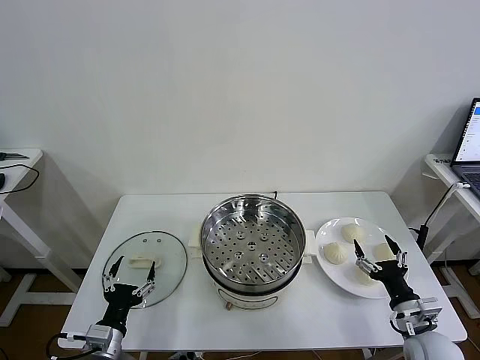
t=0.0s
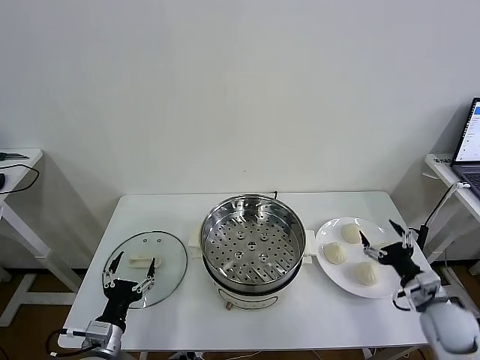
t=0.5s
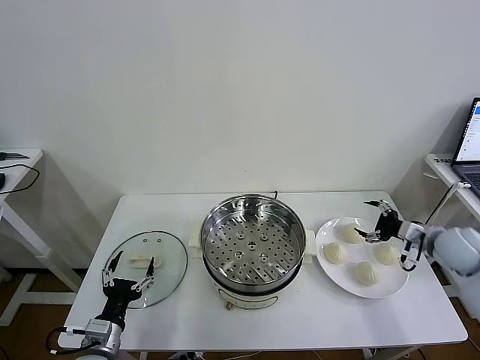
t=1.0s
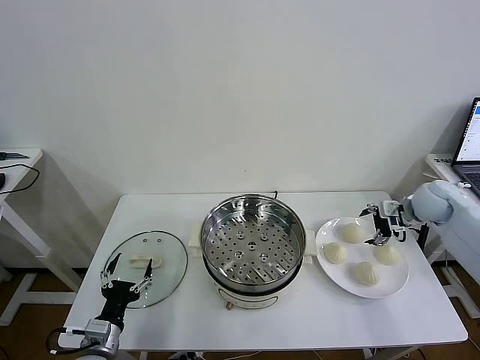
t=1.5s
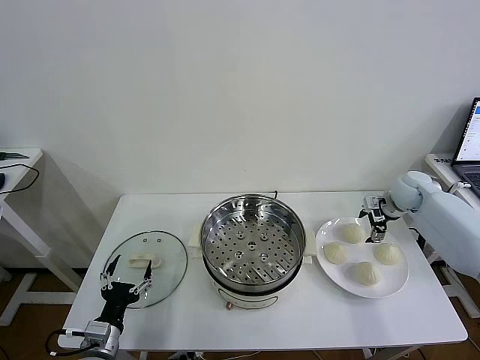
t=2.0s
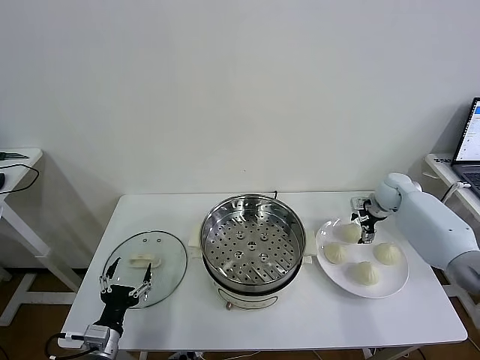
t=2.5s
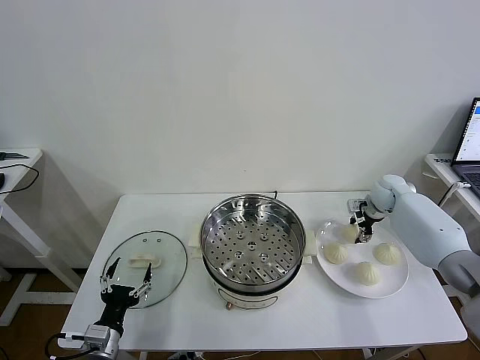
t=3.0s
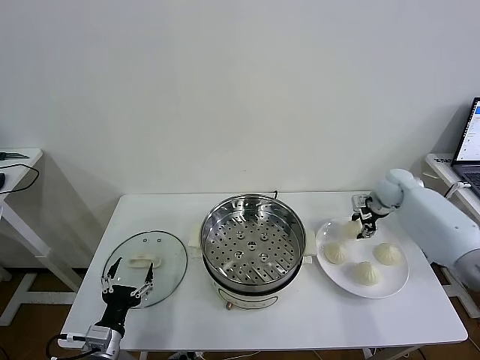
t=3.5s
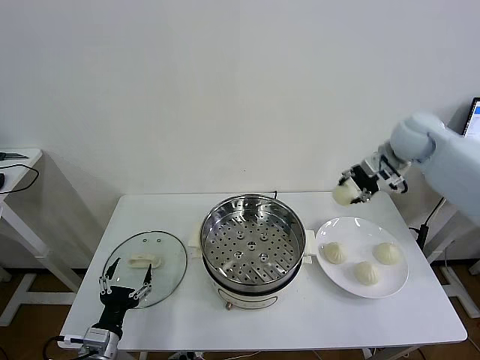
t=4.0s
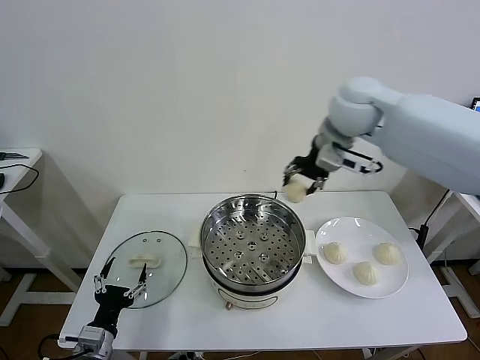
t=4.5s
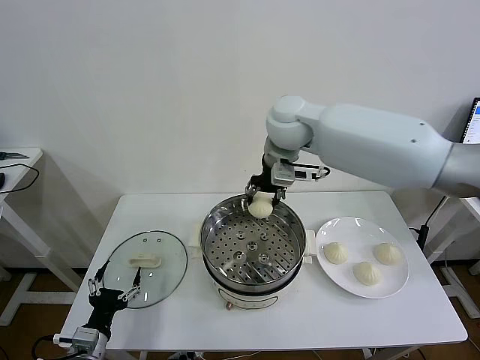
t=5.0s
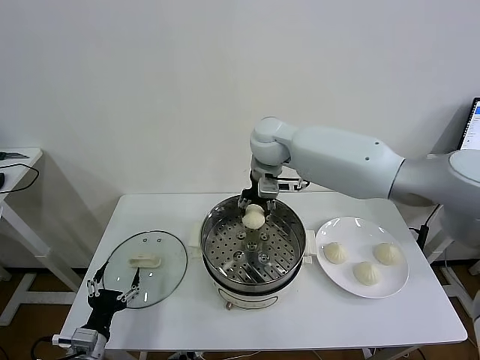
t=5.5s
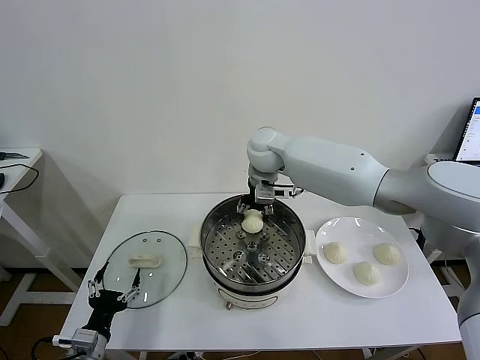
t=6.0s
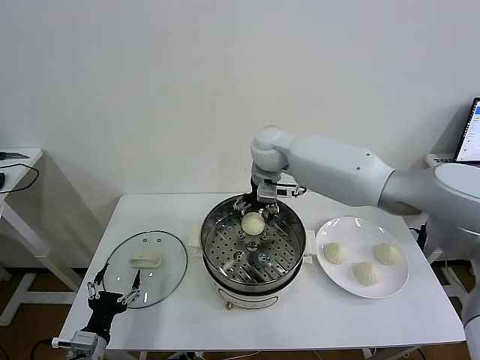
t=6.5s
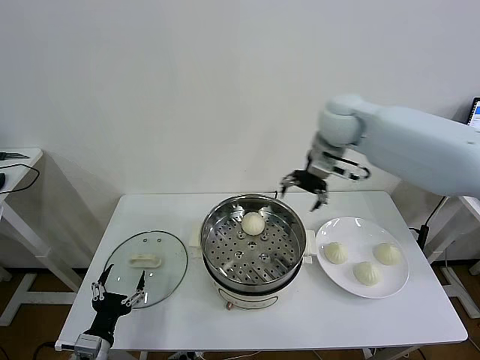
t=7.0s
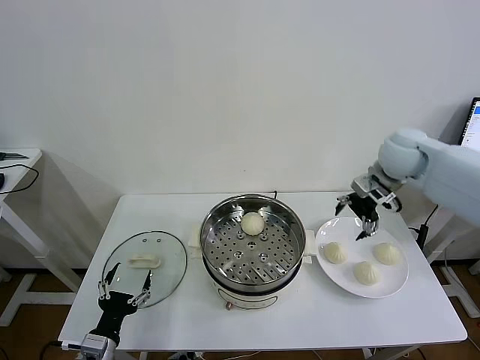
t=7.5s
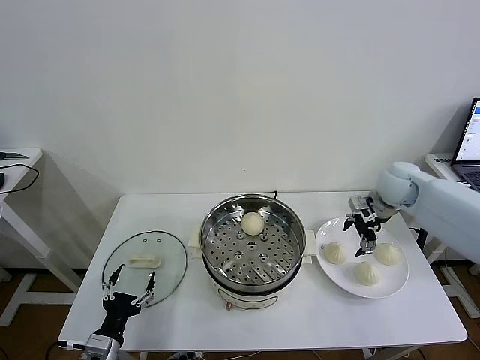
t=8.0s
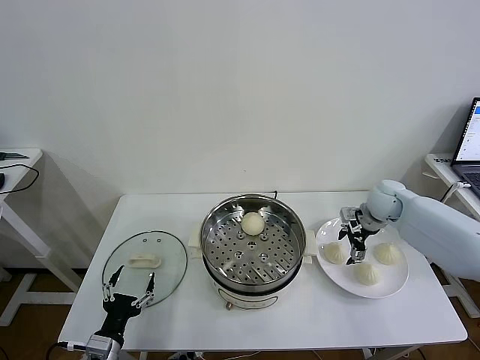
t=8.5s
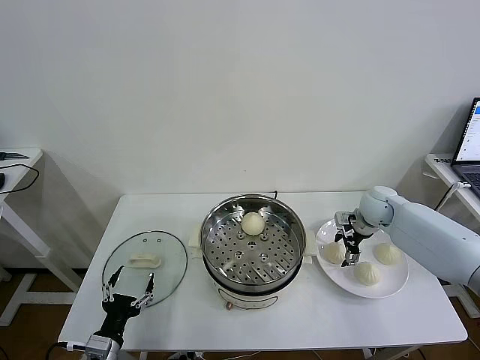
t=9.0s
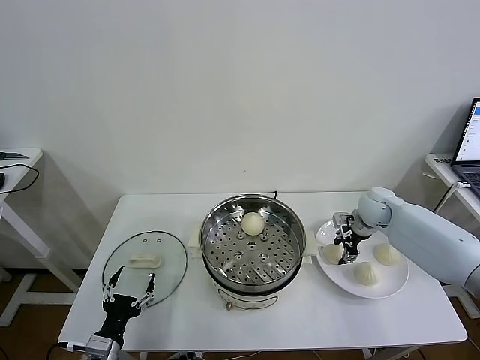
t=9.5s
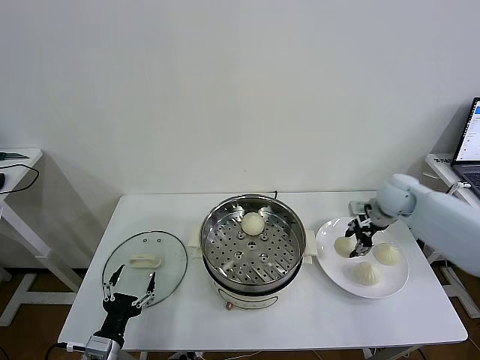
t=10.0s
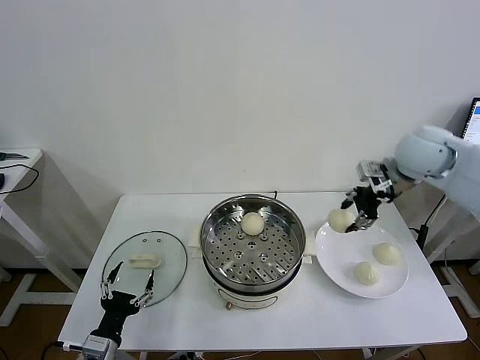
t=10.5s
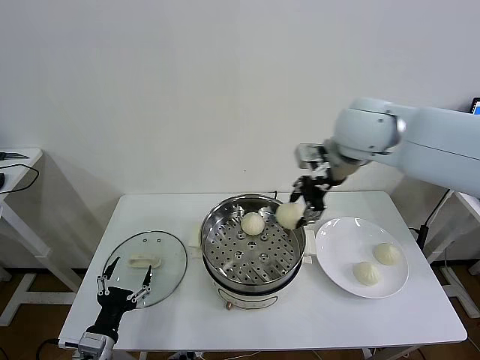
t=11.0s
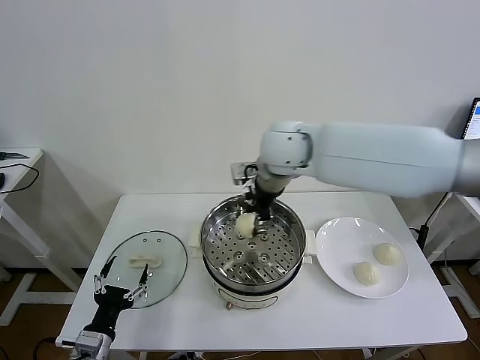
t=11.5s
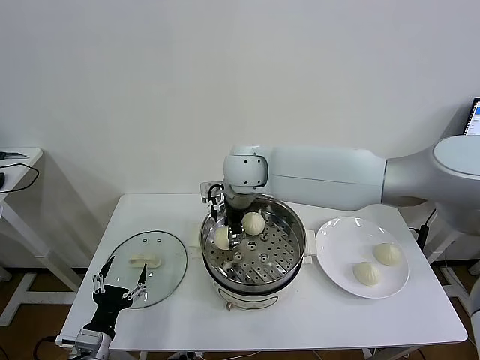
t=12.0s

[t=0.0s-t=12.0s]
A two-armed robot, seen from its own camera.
Task of the whole recording: take steamed baozi put them in steamer then cover it.
Step, t=0.0s to t=3.0s: Grasp the baozi in the plate with right gripper.
Step, t=3.5s to t=6.0s: Place the baozi on the steamer with right gripper.
Step, t=6.5s to t=9.0s: Grasp the baozi in the plate with right gripper.
t=2.0s to t=4.0s: The right gripper moves upward and to the left, about 20 cm, and closes its fingers.
t=4.0s to t=6.0s: The right gripper shifts some 30 cm to the left.
t=6.0s to t=8.0s: The right gripper heads to the right, covering some 30 cm, and opens up.
t=8.0s to t=10.0s: The right gripper reaches roughly 10 cm downward, then returns, and closes its fingers.
t=10.0s to t=12.0s: The right gripper goes some 40 cm to the left.

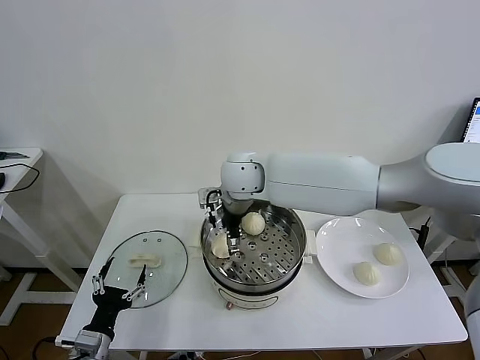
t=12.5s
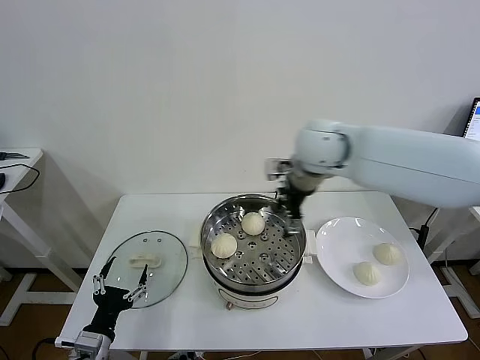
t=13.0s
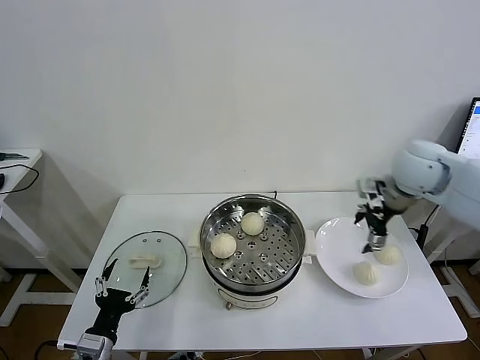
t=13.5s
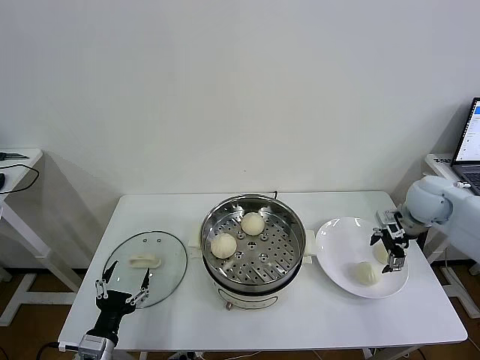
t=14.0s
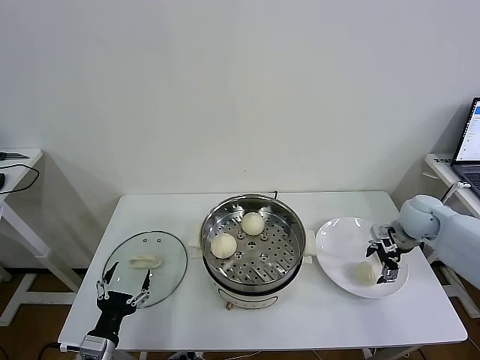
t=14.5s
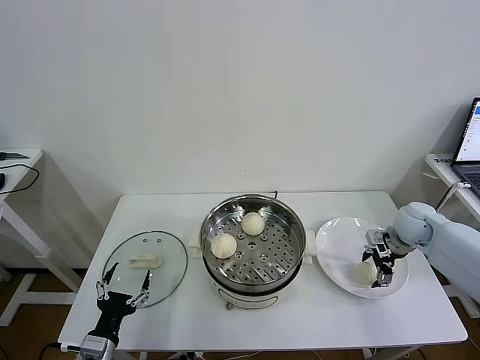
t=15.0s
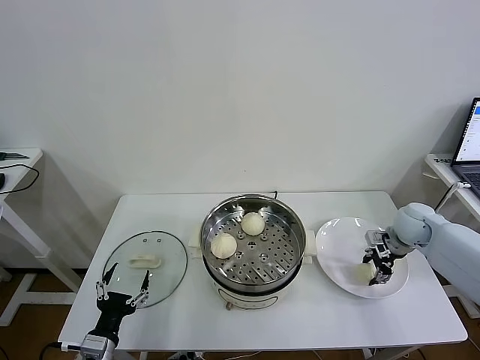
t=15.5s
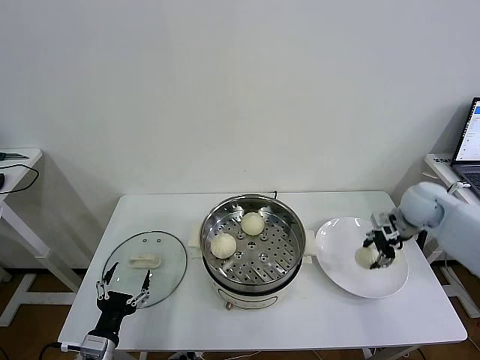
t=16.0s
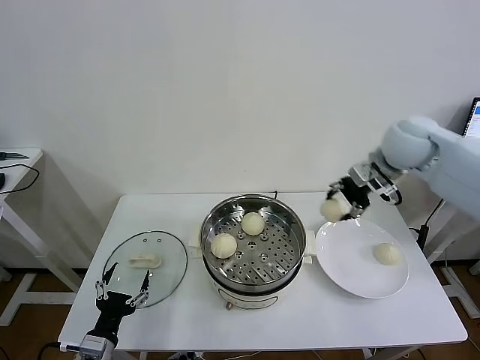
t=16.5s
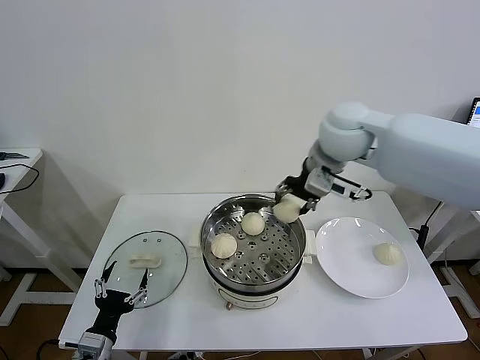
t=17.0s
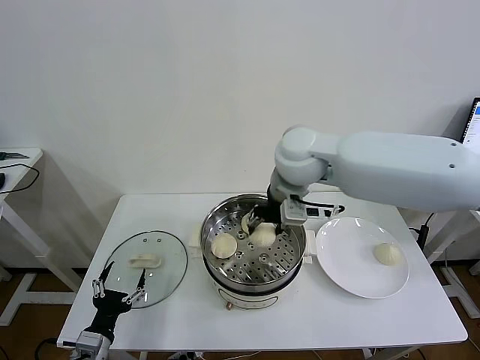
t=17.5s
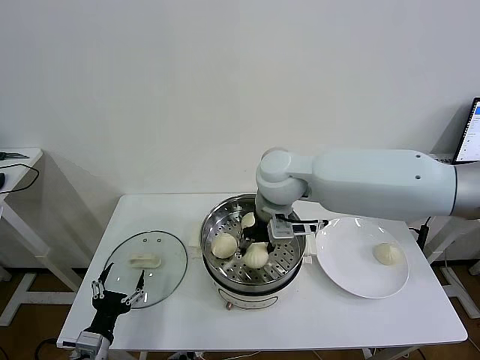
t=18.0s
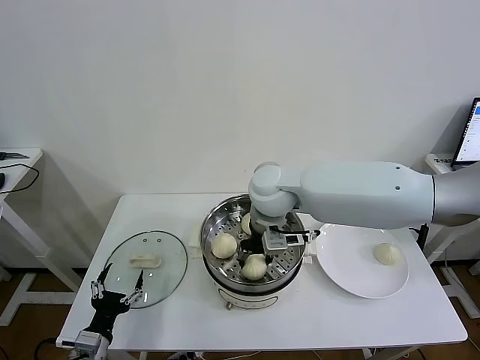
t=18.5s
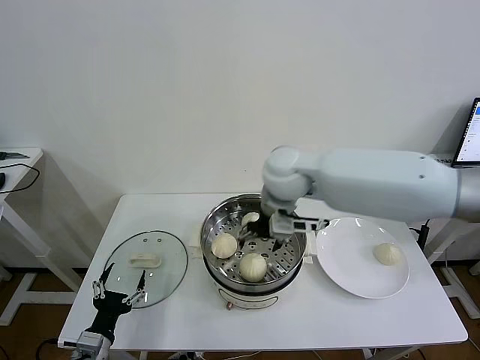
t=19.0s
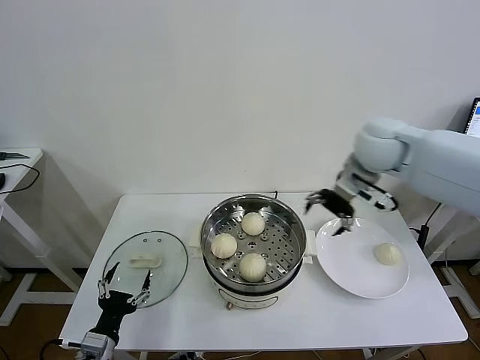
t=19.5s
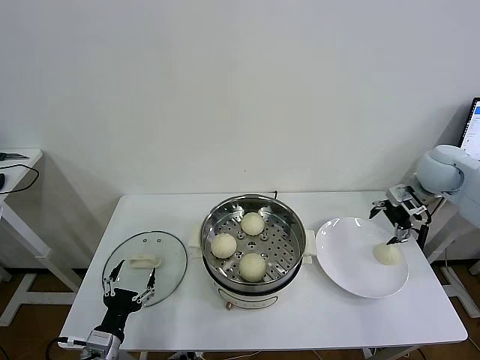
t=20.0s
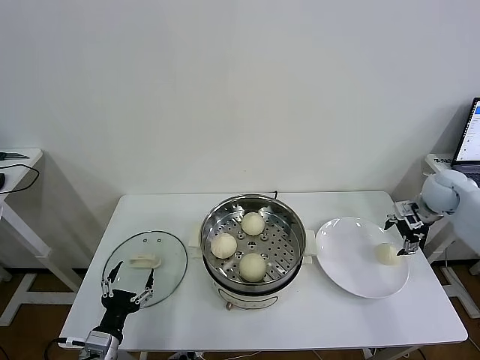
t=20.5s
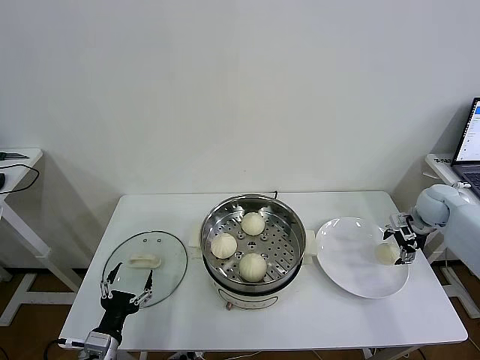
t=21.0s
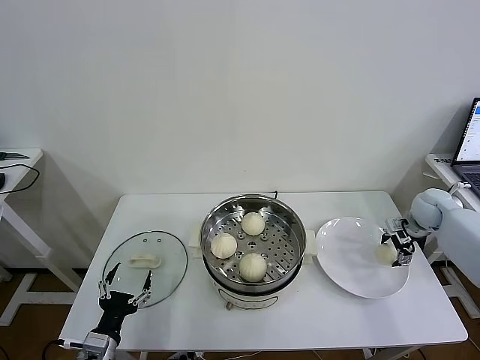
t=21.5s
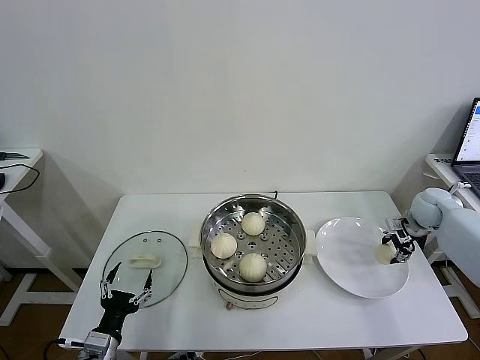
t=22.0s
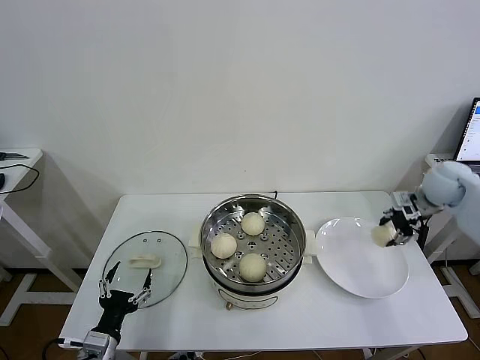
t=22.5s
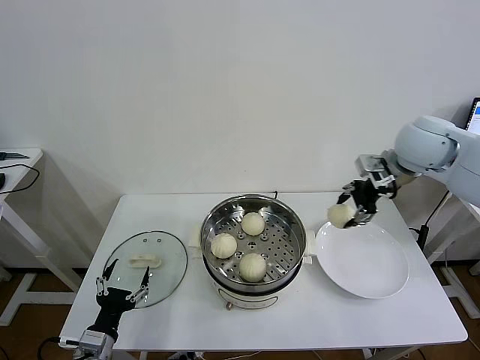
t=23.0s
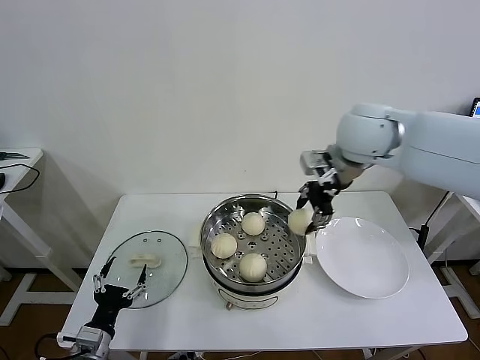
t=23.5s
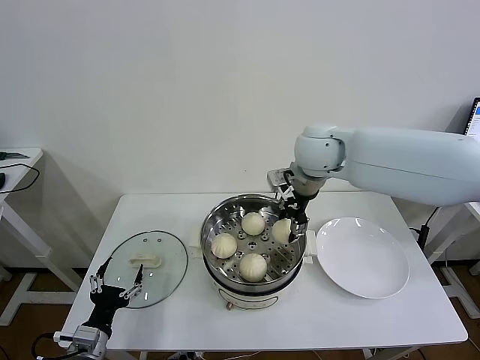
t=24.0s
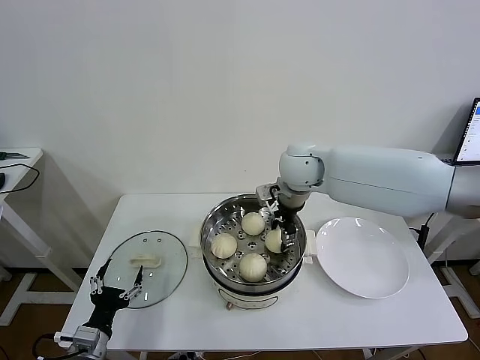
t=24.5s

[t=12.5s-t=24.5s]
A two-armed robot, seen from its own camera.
Task of the whole recording: take steamed baozi put them in steamer then cover it.
Step, t=12.5s to t=15.0s: Grasp the baozi in the plate with right gripper.
Step, t=16.0s to t=18.5s: Place the baozi on the steamer with right gripper.
Step, t=19.0s to t=22.0s: Grasp the baozi in the plate with right gripper.
t=12.5s to t=14.5s: The right gripper shifts roughly 40 cm to the right.
t=14.5s to t=16.5s: The right gripper shifts about 25 cm upward and to the left, and closes its fingers.
t=16.5s to t=18.5s: The right gripper heads to the left, covering roughly 25 cm.
t=18.5s to t=20.5s: The right gripper heads to the right, covering about 40 cm, and opens its fingers.
t=20.5s to t=22.5s: The right gripper closes.
t=22.5s to t=24.5s: The right gripper heads to the left, covering approximately 35 cm.

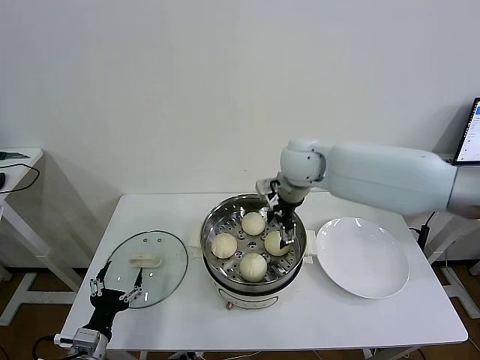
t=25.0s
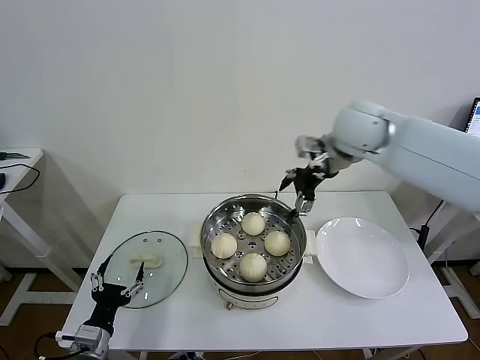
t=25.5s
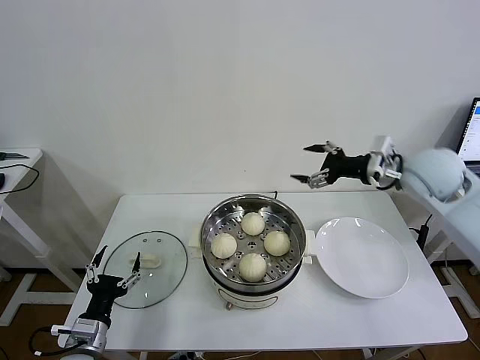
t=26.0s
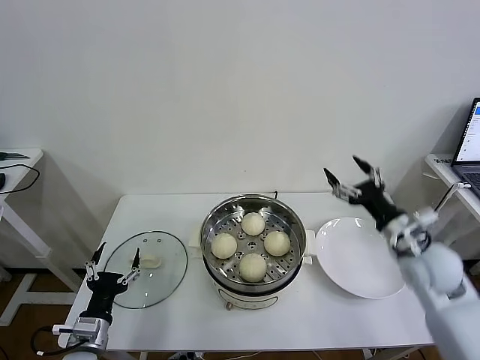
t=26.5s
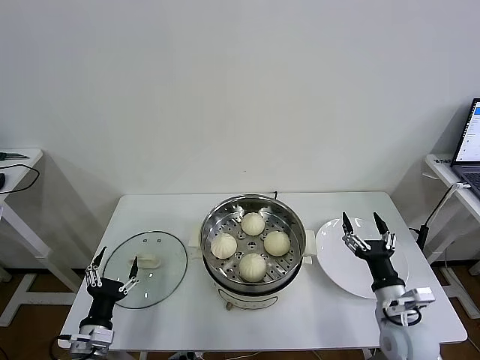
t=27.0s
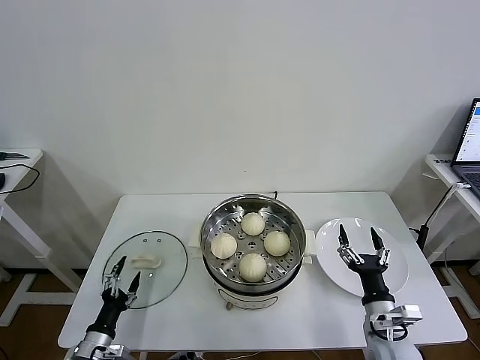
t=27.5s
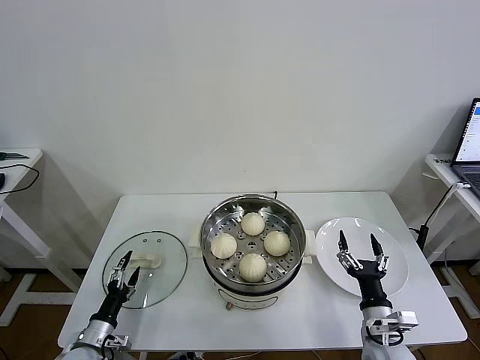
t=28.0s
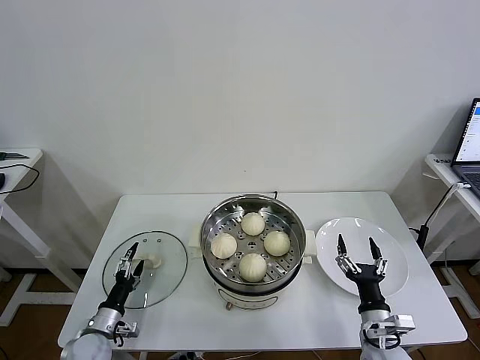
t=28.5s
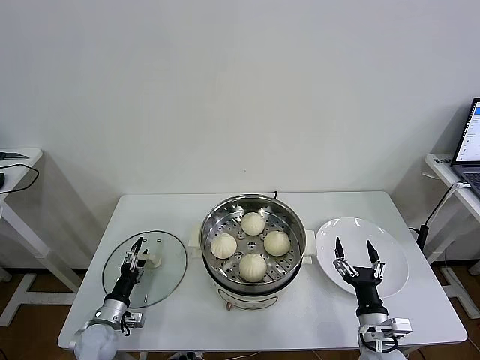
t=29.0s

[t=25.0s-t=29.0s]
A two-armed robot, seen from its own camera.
Task of the whole recording: take steamed baozi put them in steamer then cover it.
t=25.0s to t=27.0s: The right gripper shifts some 40 cm backward, downward and to the right.
t=27.0s to t=29.0s: The right gripper shifts approximately 5 cm downward. Meanwhile the left gripper shifts some 15 cm downward and forward.
